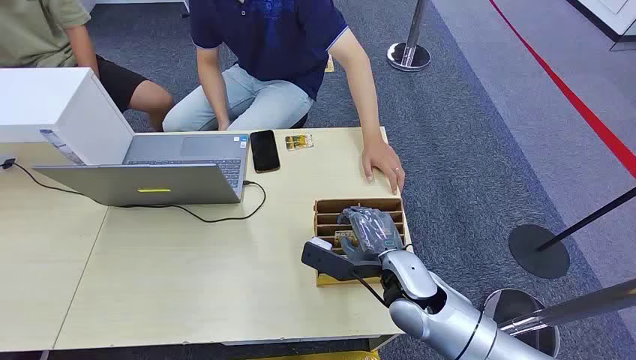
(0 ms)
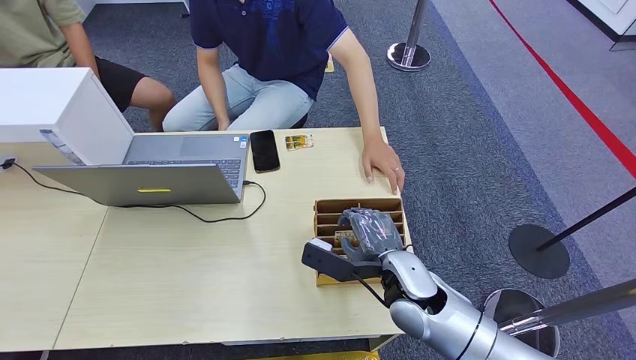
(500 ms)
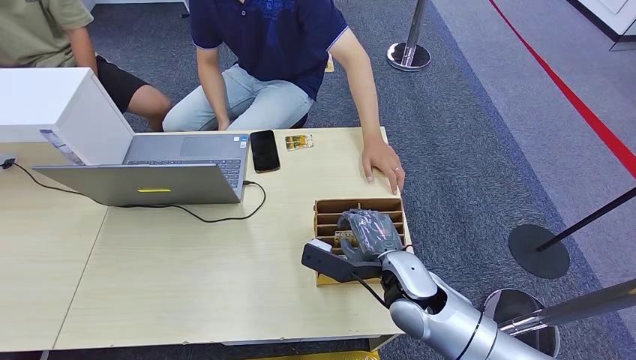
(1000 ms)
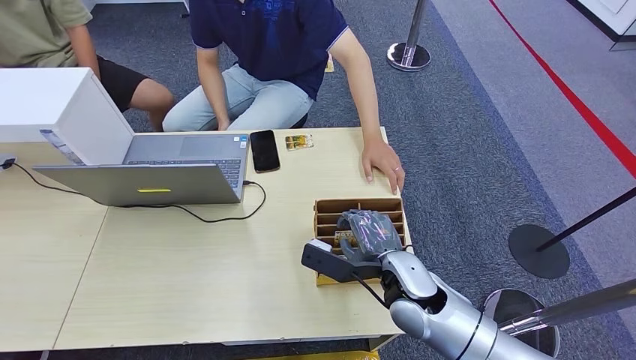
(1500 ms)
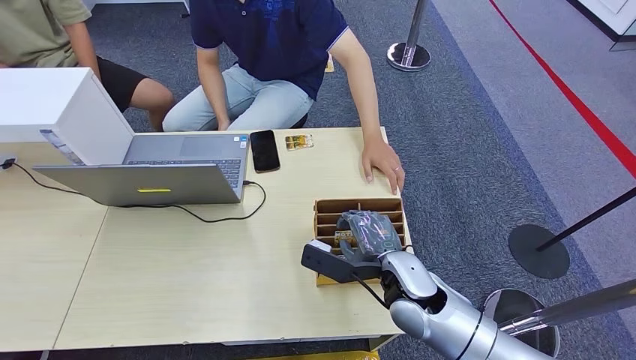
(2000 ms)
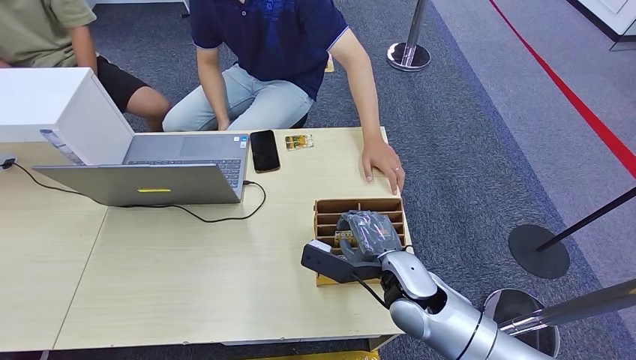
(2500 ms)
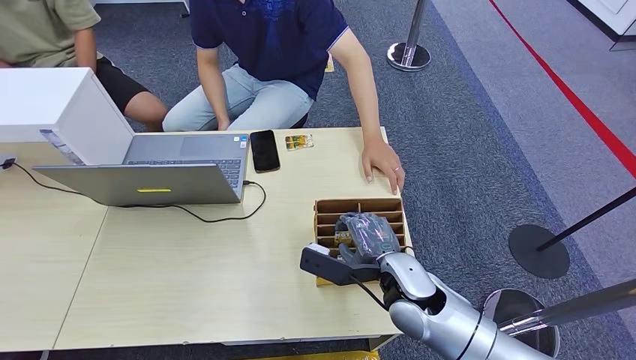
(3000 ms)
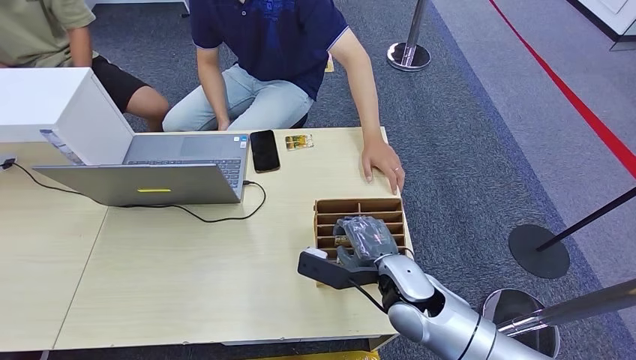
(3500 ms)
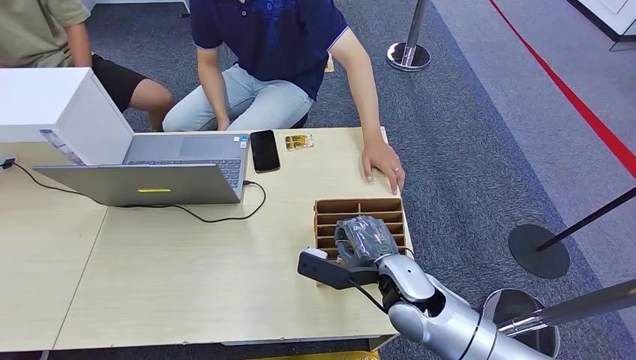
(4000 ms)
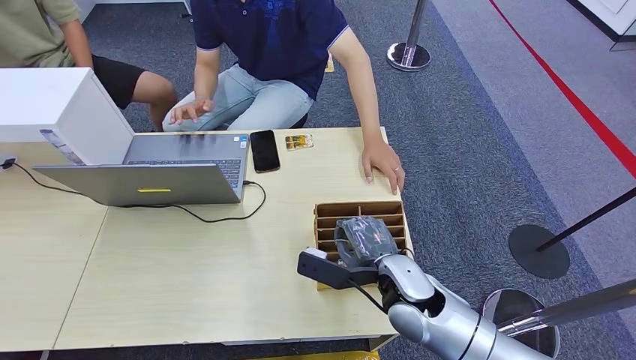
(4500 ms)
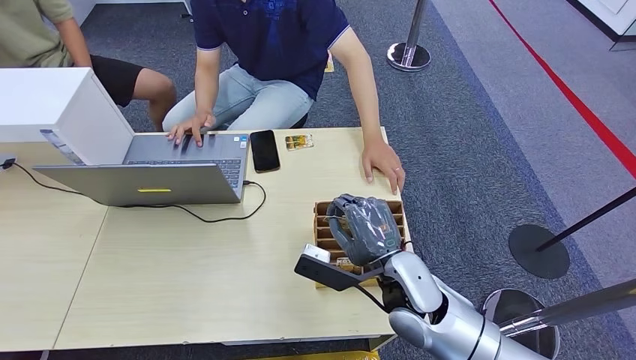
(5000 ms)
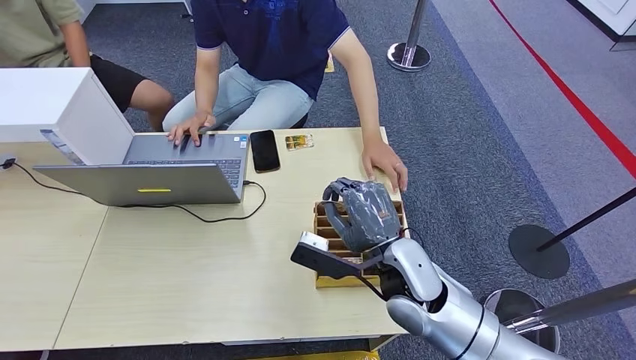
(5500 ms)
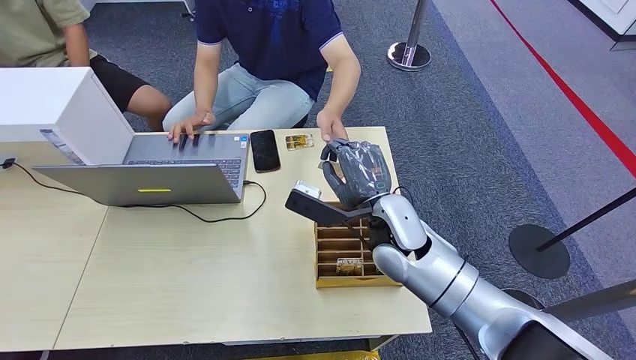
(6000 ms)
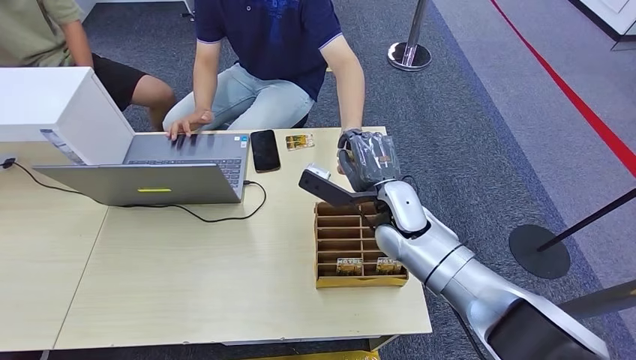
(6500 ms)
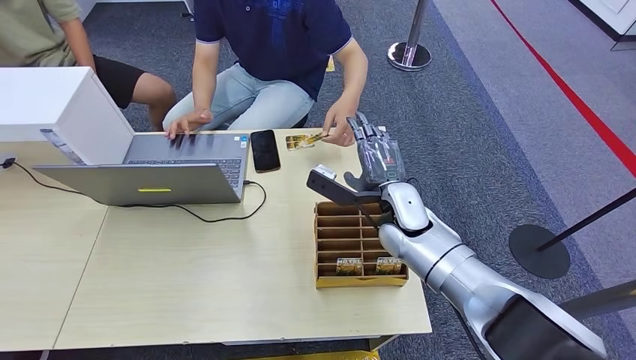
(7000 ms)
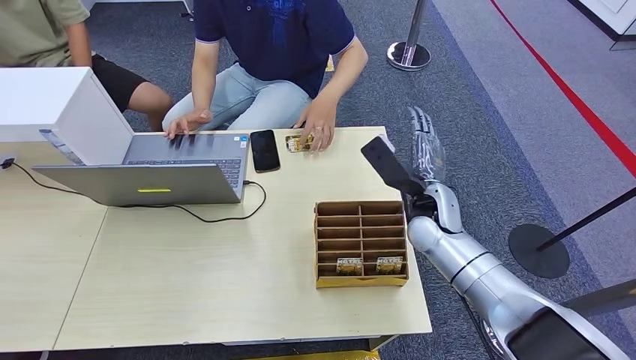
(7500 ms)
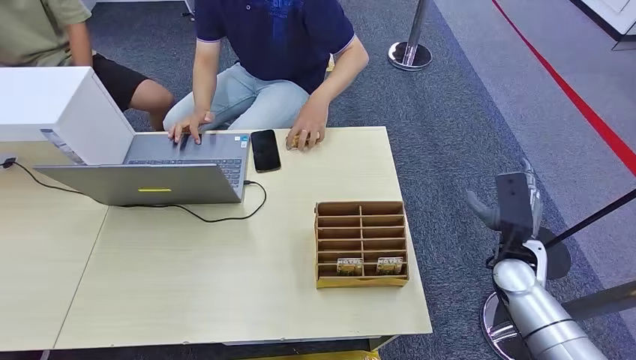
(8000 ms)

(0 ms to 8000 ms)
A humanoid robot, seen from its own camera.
Task of the whole recording: Pick up the card and hand it over to the target person.
Step, 0 ms - 5000 ms: Pick up the key card from the card box.
Step, 5500 ms - 7500 ms: Hand the key card to the target.
2000 ms - 4000 ms: The two hands keep their place.
4000 ms - 6000 ms: The right hand goes approximately 10 cm forward.
6000 ms - 8000 ms: The right hand goes roughly 35 cm to the right and backward.

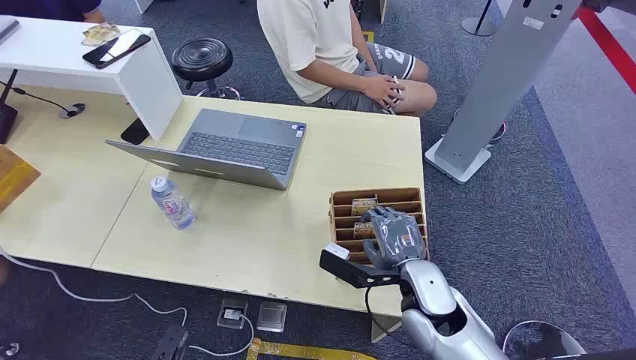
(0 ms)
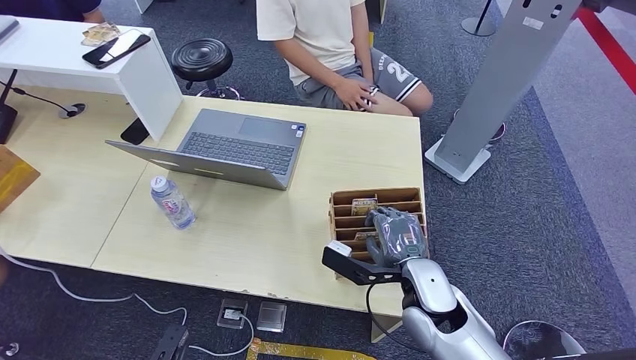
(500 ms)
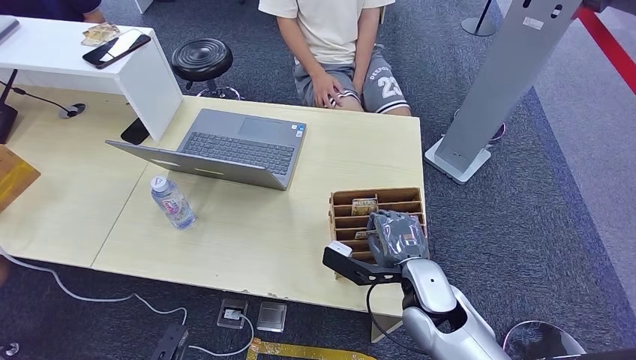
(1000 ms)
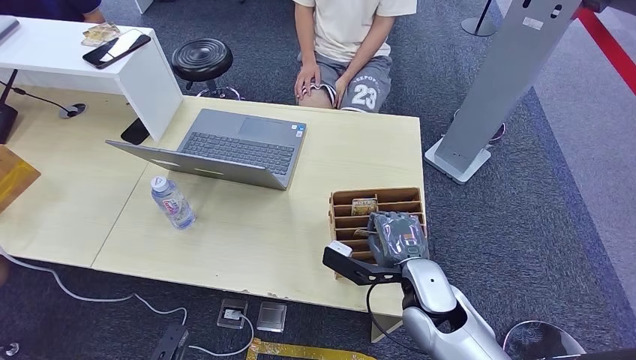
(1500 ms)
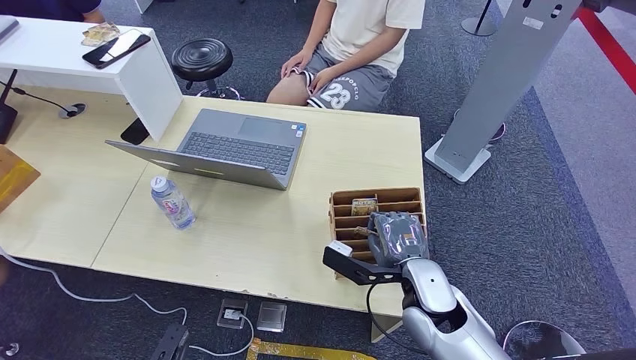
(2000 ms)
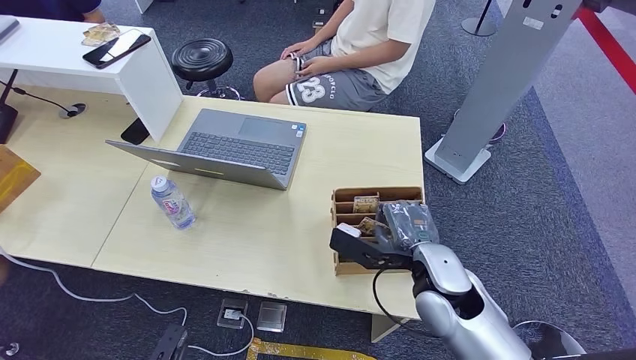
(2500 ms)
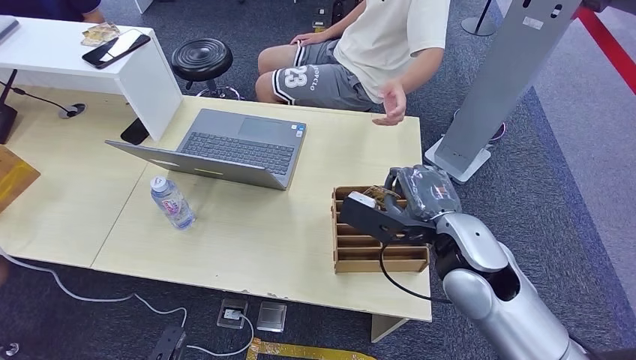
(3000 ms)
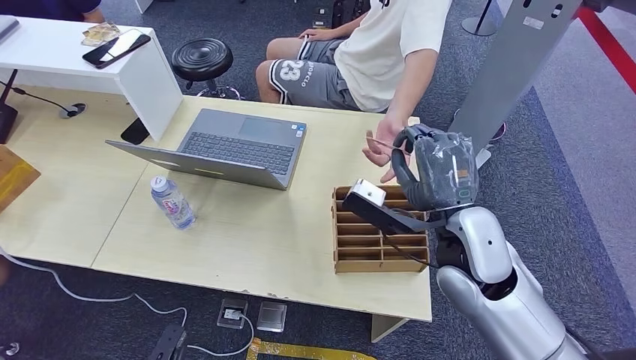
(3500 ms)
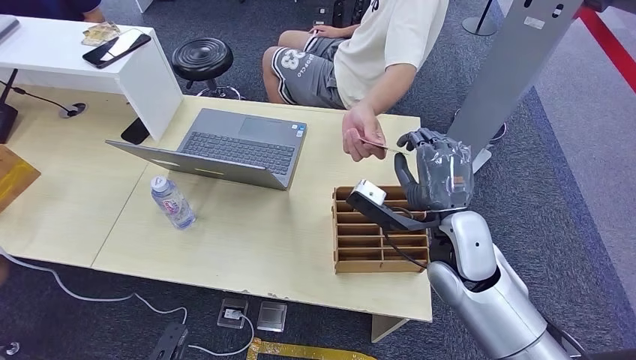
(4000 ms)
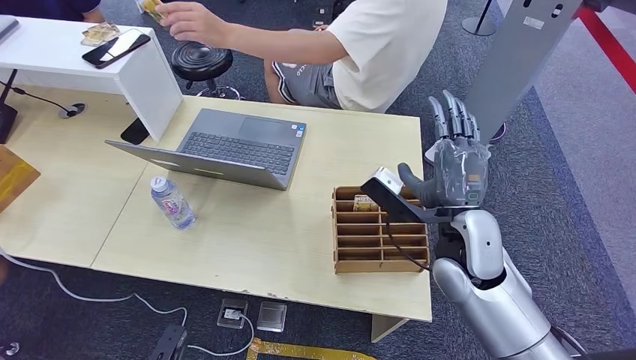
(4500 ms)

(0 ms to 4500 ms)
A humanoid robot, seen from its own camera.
Task of the whole recording: Pick up the card and hand it over to the target person.
Step, 0 ms - 3000 ms: Pick up the key card from the card box.
Step, 3500 ms - 4500 ms: Hand the key card to the target.
2000 ms - 4500 ms: The right hand goes roughly 10 cm upward.
